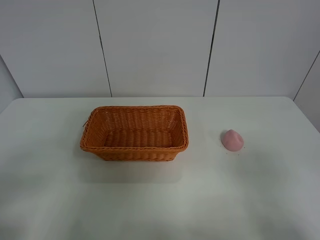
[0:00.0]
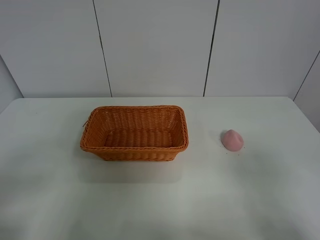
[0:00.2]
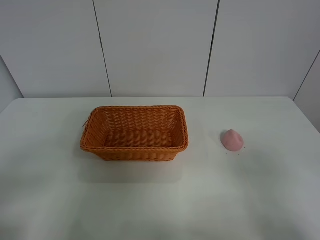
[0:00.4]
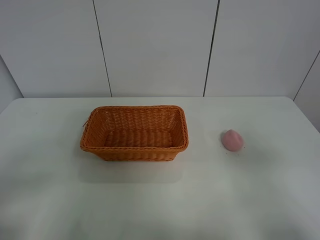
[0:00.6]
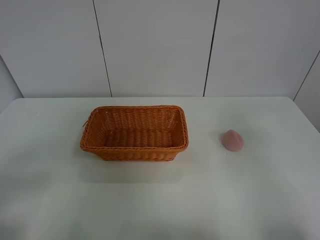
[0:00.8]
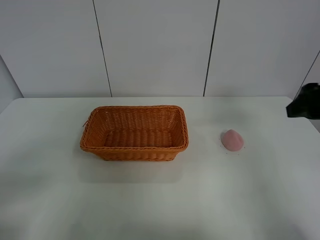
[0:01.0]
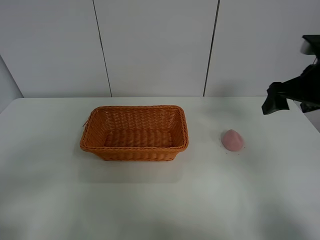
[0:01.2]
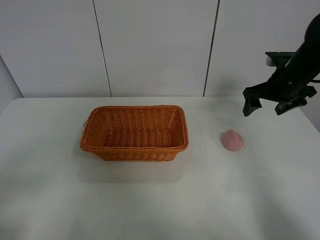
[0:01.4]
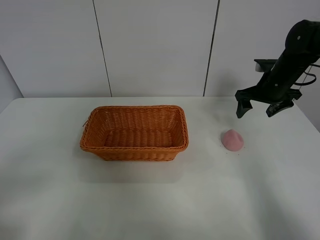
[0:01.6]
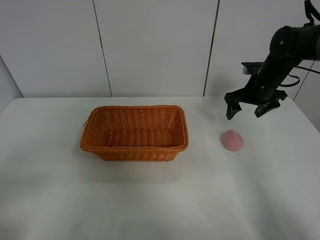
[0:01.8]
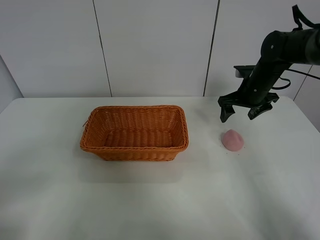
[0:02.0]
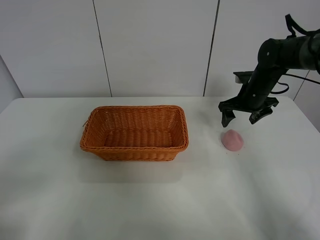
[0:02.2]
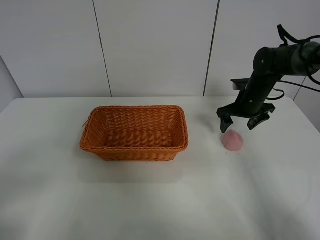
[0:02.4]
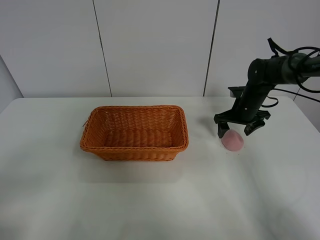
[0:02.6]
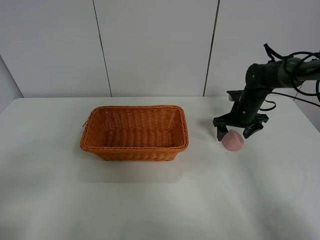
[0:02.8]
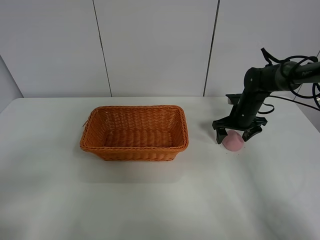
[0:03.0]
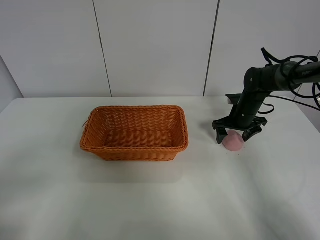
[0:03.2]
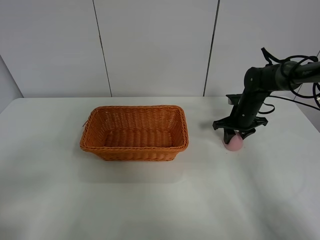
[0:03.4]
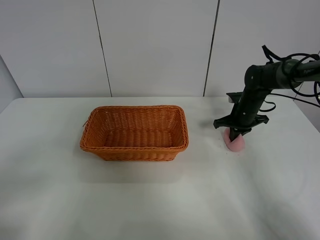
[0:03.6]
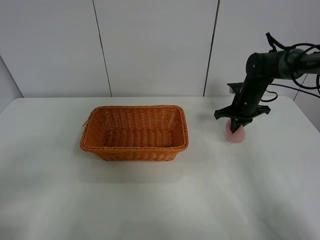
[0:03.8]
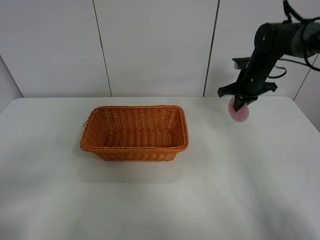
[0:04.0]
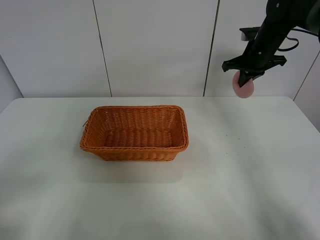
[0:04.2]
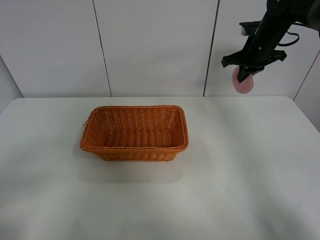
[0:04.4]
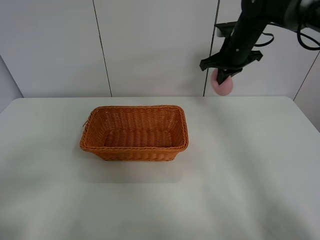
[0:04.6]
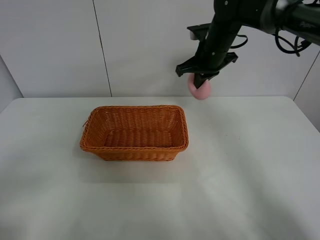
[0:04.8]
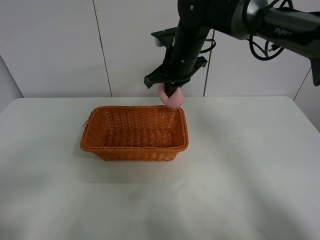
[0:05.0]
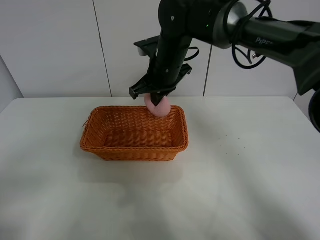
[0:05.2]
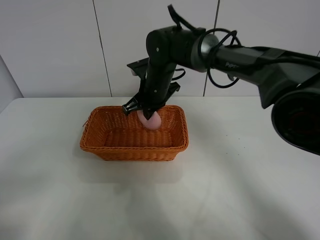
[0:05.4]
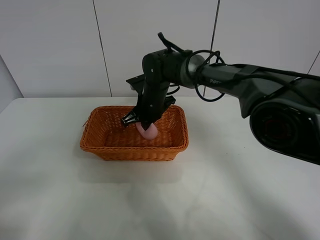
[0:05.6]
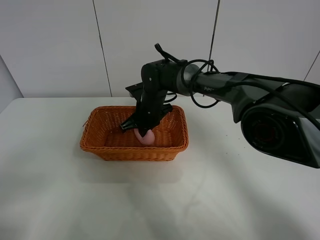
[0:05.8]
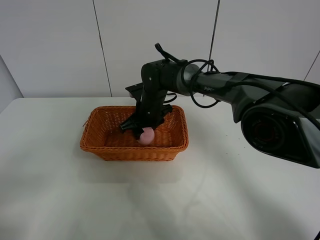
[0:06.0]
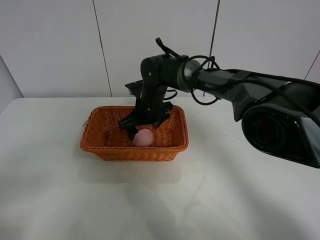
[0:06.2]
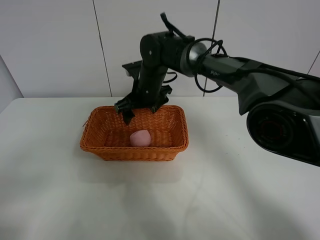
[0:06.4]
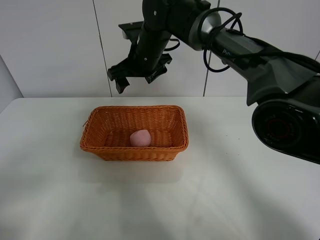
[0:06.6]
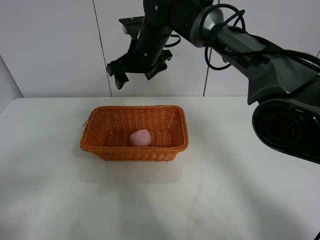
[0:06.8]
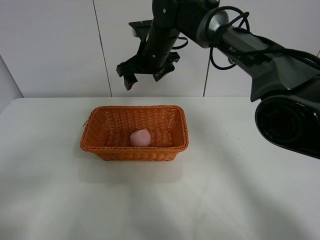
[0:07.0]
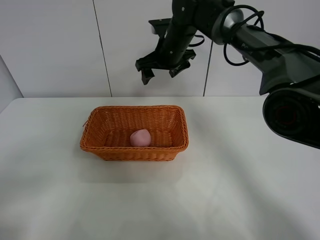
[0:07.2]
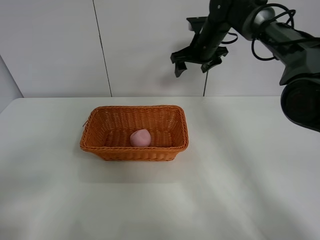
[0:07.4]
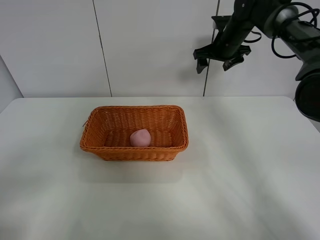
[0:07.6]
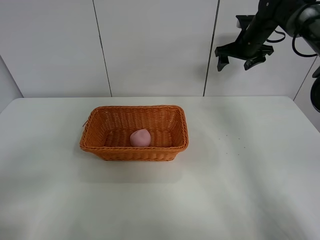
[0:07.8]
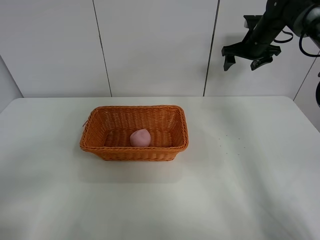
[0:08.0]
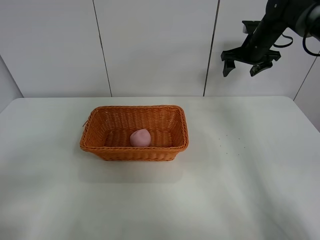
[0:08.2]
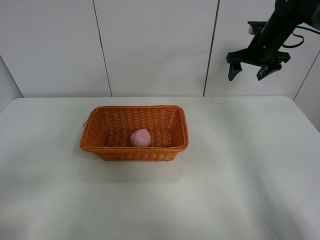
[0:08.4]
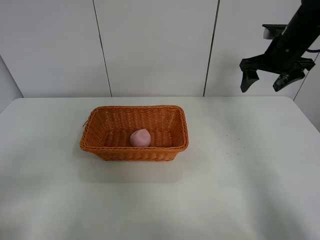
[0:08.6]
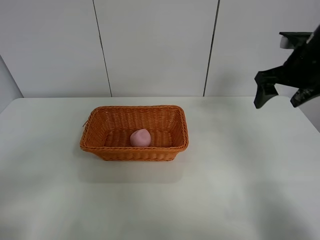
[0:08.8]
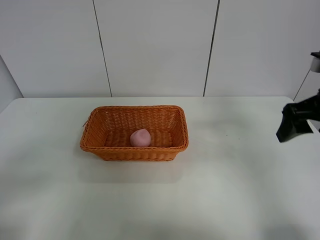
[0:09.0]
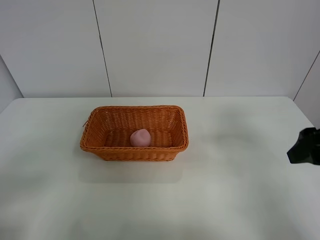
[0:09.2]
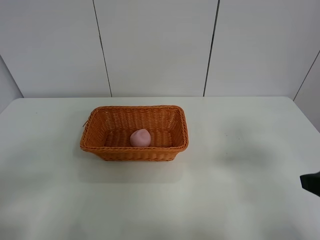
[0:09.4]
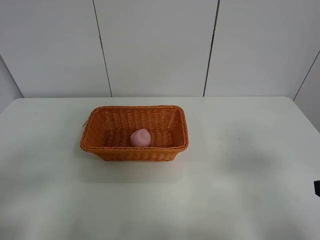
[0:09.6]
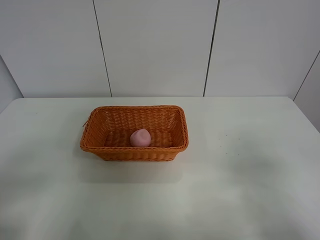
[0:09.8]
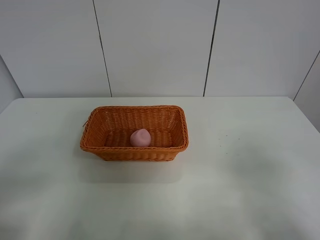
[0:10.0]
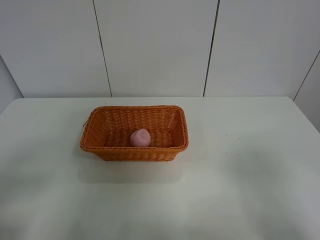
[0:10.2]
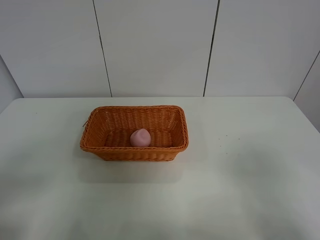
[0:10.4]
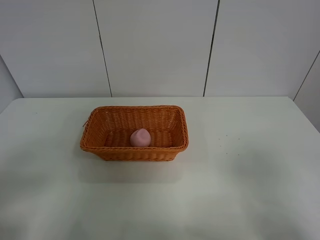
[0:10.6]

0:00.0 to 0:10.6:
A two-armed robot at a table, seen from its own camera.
Step, 0:00.0 to 0:03.6: Grasp the peach with right gripper.
Step, 0:03.8 to 0:06.8: Place the peach in the basket with right gripper.
0:00.0 to 0:01.6: The right gripper shifts approximately 40 cm forward.
0:01.6 to 0:03.0: The right gripper is displaced downward by about 10 cm.
0:03.0 to 0:04.6: The right gripper moves upward and to the left, some 20 cm, and closes.
0:04.6 to 0:06.0: The right gripper heads to the left and downward, covering roughly 25 cm, and opens up.
0:06.0 to 0:07.6: The right gripper moves to the right, upward and forward, roughly 25 cm.
0:07.6 to 0:09.0: The right gripper is displaced backward by roughly 30 cm.
0:09.0 to 0:10.6: The right gripper goes roughly 20 cm backward.
